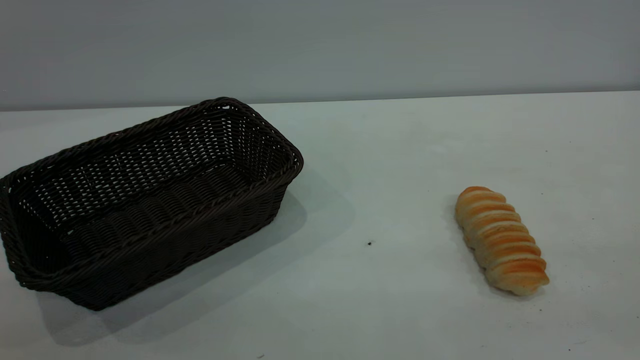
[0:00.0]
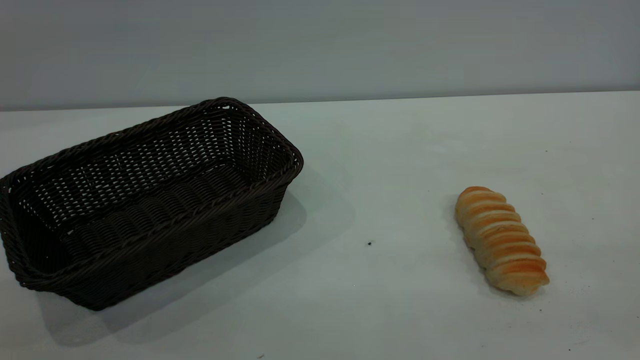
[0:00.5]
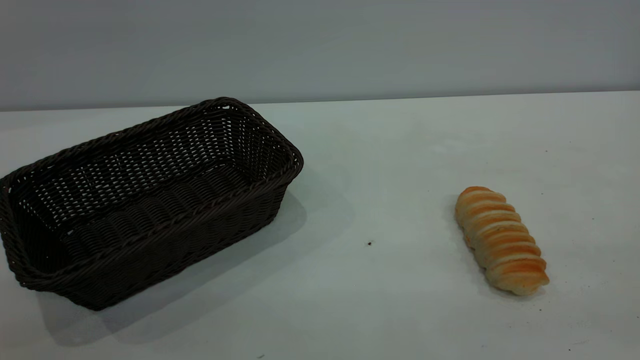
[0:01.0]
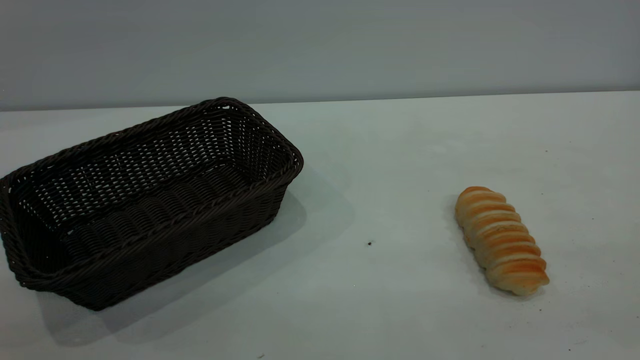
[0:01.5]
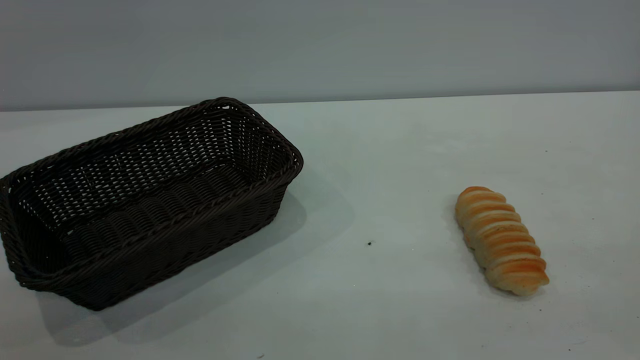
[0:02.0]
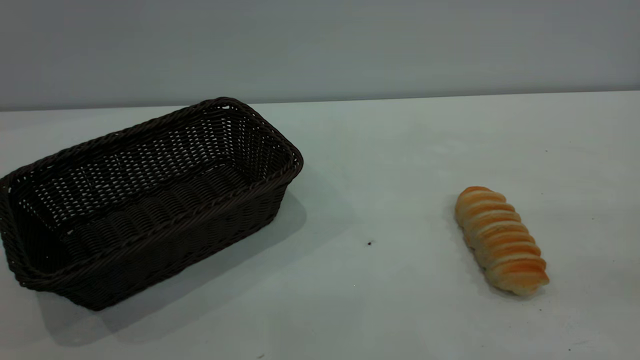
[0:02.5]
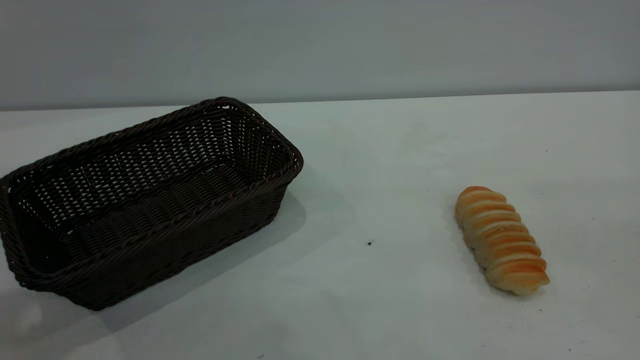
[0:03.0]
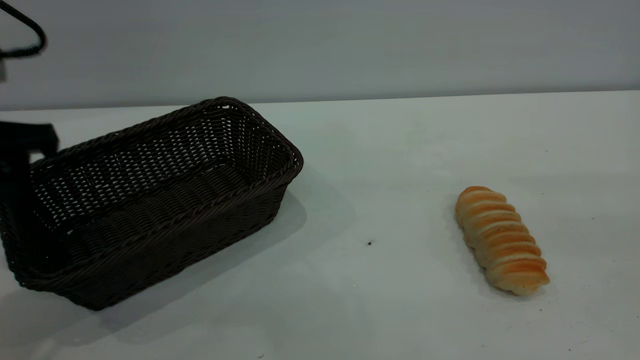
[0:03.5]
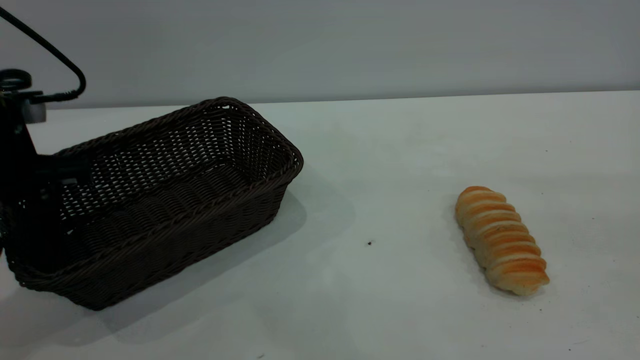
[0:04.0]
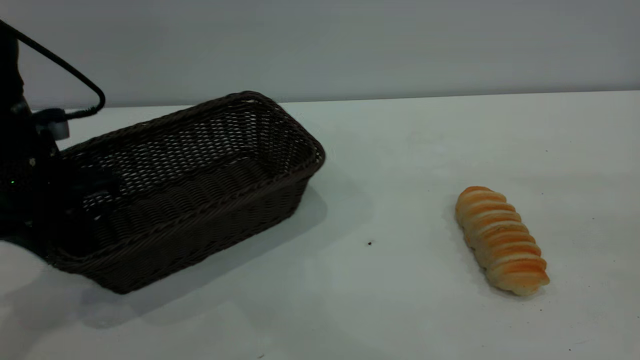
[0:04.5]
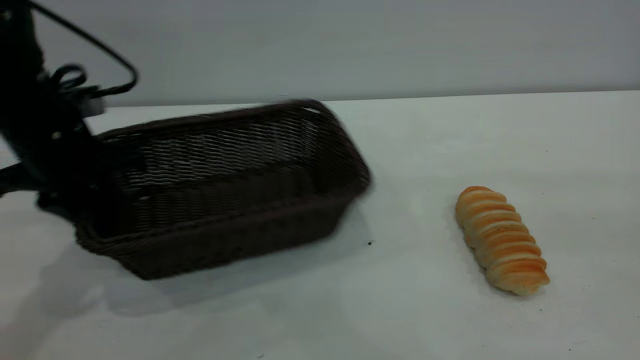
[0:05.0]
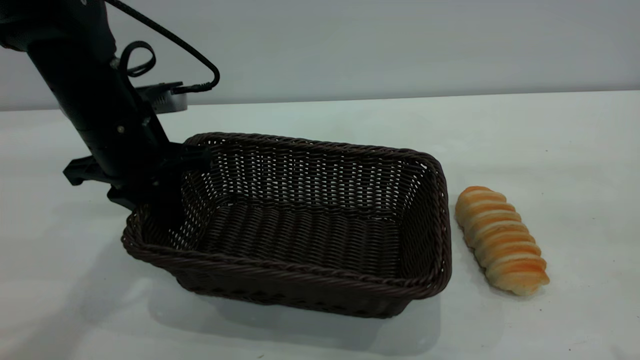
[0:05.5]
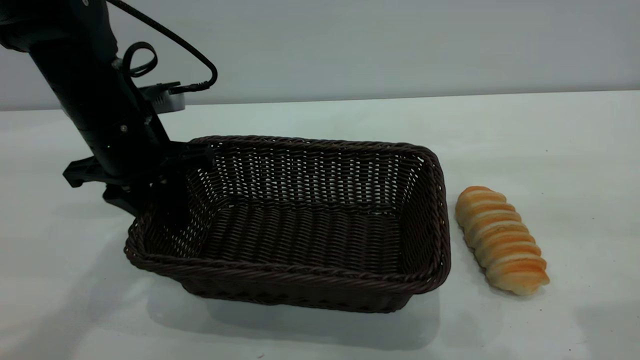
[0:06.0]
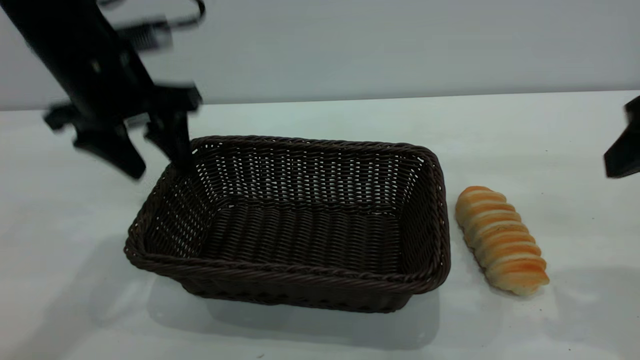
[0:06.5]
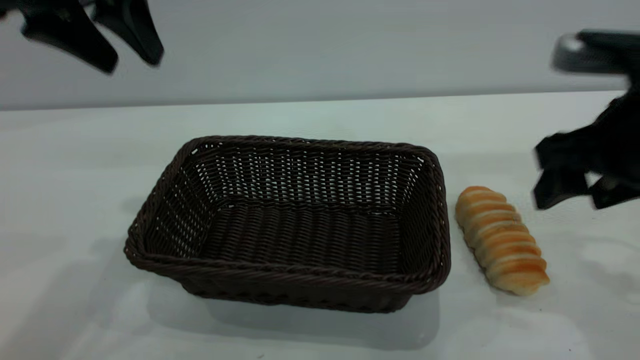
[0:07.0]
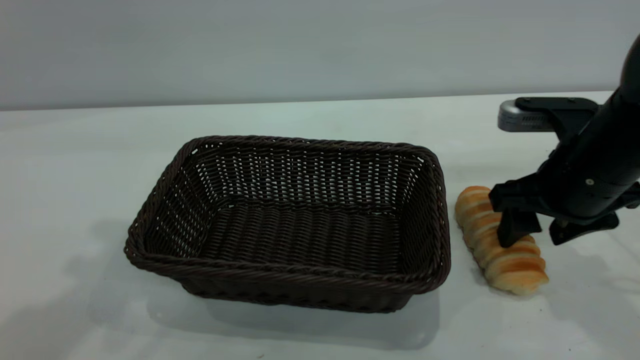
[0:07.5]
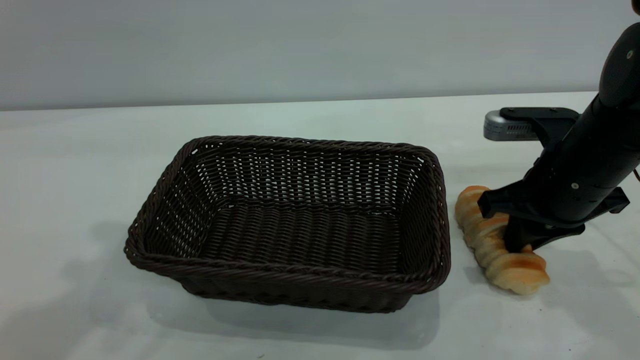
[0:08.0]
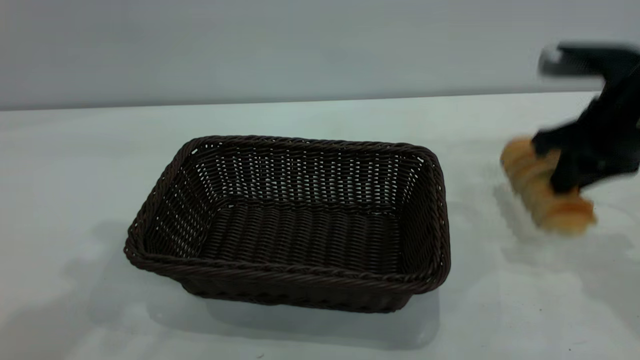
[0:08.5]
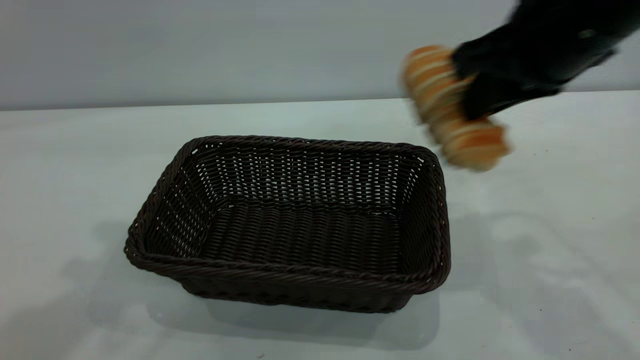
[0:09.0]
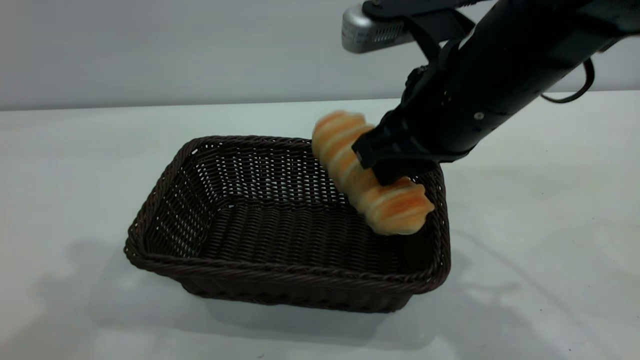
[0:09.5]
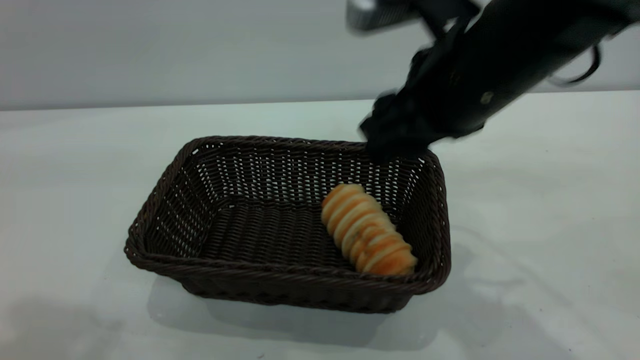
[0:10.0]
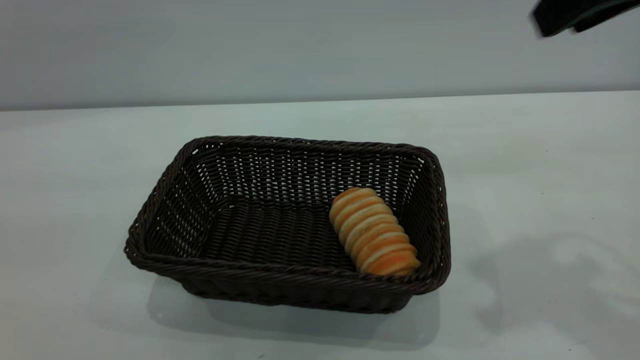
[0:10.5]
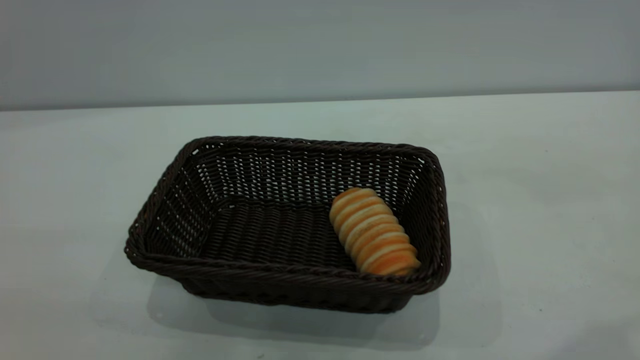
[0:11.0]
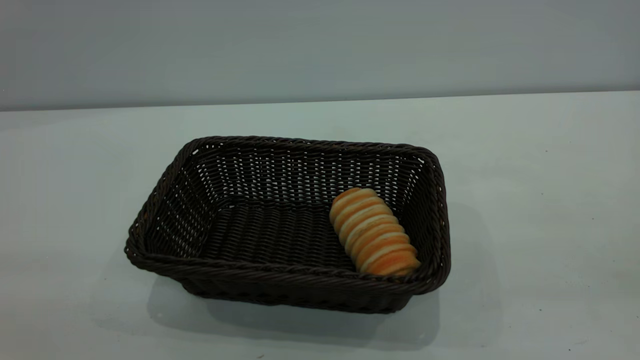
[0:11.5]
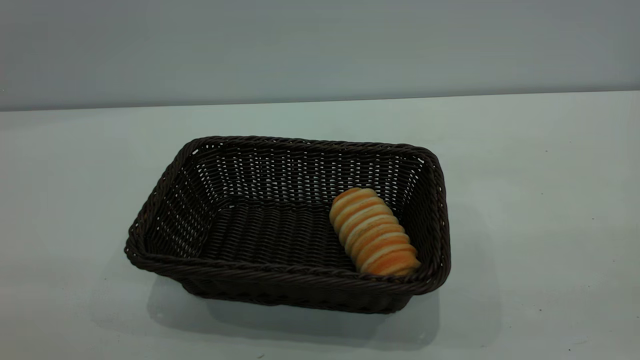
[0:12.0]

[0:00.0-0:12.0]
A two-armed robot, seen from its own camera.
Task of the whole recording: One hand grasps the black basket and places it in the middle of the table, while the other hand picks up the long bread and puts it into the black basket.
Step, 0:00.0 to 0:06.5: Move the basket to the center of view.
Step, 0:09.0 to 0:10.0: place the bread into the basket.
0:02.0 to 0:04.0: The left gripper travels forward and downward by roughly 35 cm.
0:04.0 to 0:06.0: The left gripper goes roughly 10 cm to the right, and closes and opens again. Meanwhile the right gripper is displaced forward and downward by some 10 cm.
0:06.0 to 0:08.0: The right gripper goes roughly 20 cm downward and forward, and closes, while the left gripper shifts some 25 cm upward.
0:08.0 to 0:10.0: The left gripper heads backward, covering roughly 10 cm. The right gripper travels upward and to the left by roughly 15 cm, and opens up.
0:10.0 to 0:12.0: The left gripper moves backward and downward, about 20 cm; the right gripper shifts about 35 cm backward and to the right.

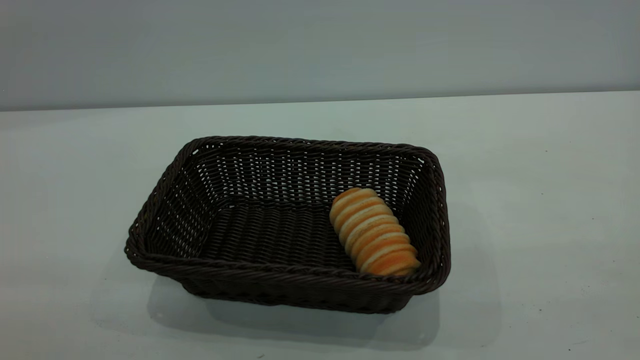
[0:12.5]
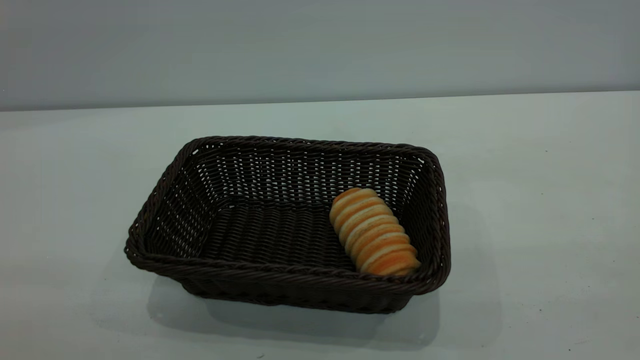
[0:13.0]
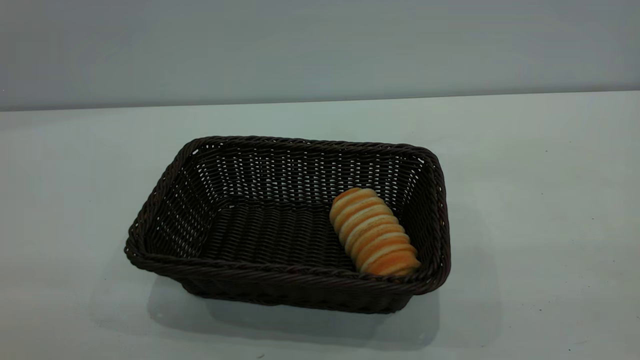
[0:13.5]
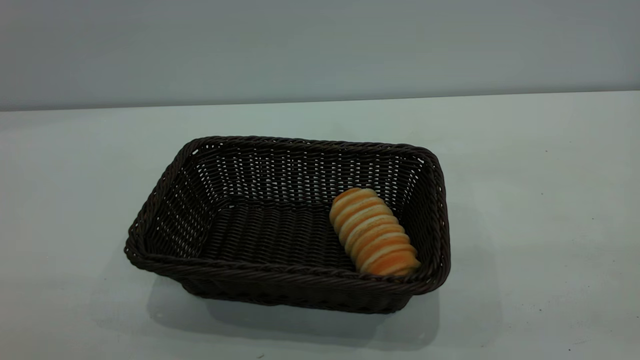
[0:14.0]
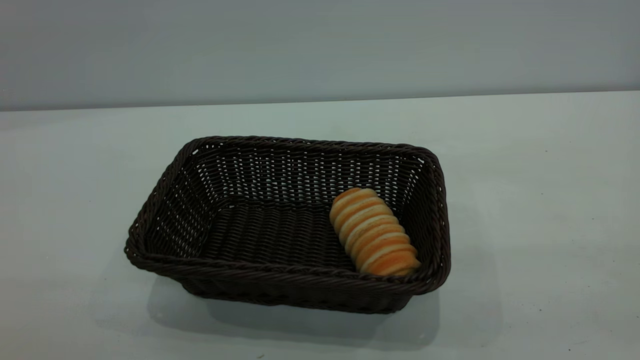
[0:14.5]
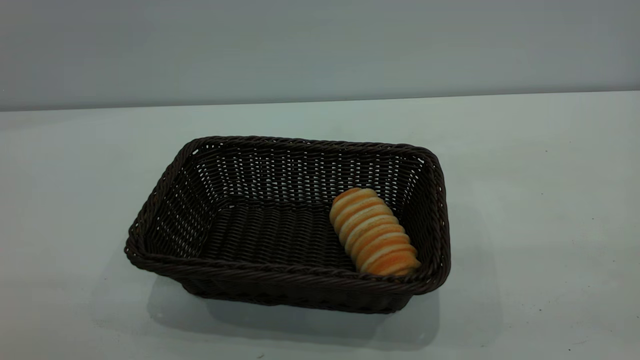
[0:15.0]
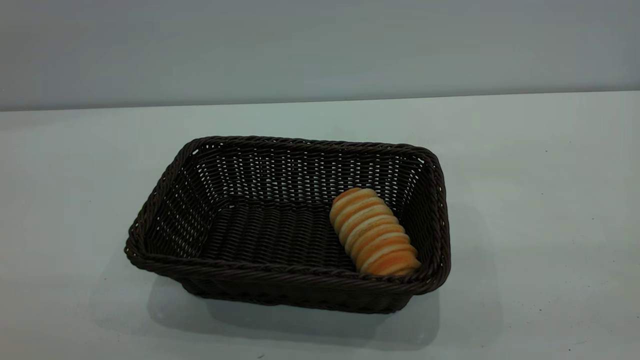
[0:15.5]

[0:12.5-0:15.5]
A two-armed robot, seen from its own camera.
Task of the whole recording: One hand grasps the black basket and places it in the middle of the table, while the other hand picks up the long bread and puts it into the black basket.
0:14.0 to 0:15.5: Neither gripper changes place.
